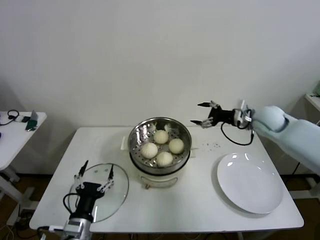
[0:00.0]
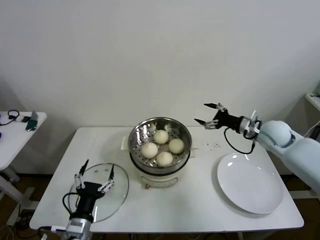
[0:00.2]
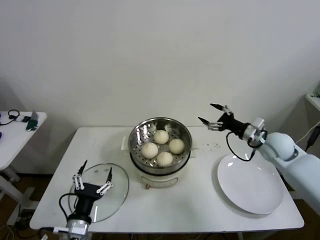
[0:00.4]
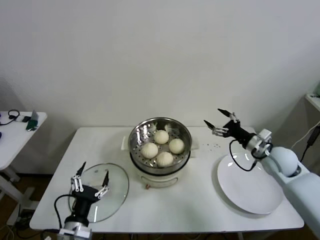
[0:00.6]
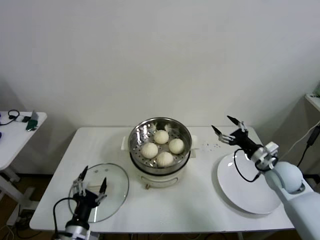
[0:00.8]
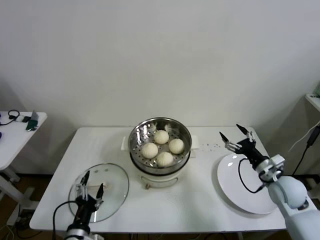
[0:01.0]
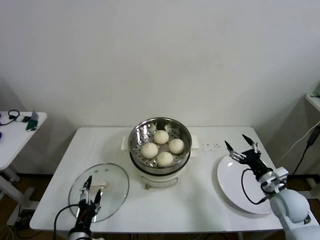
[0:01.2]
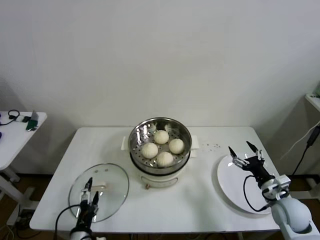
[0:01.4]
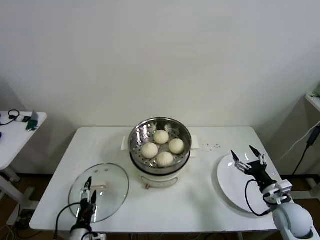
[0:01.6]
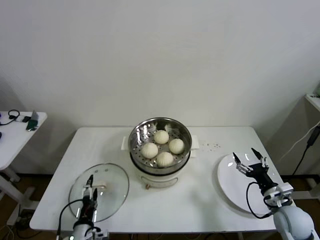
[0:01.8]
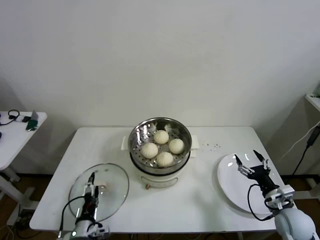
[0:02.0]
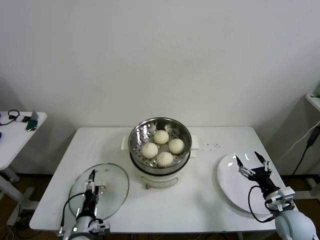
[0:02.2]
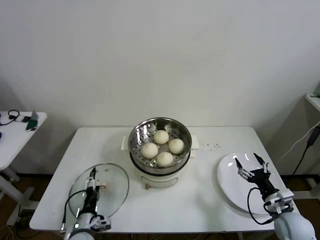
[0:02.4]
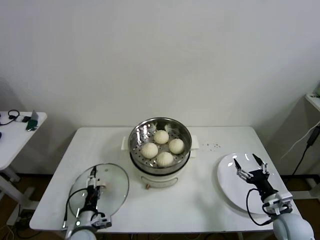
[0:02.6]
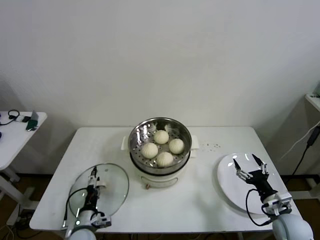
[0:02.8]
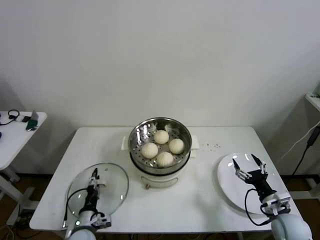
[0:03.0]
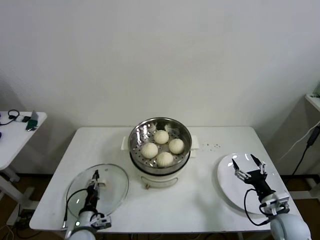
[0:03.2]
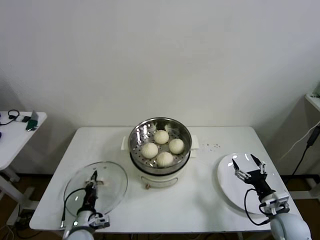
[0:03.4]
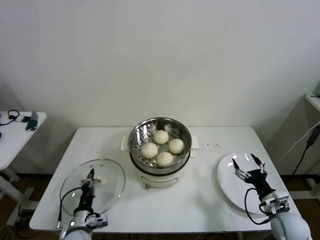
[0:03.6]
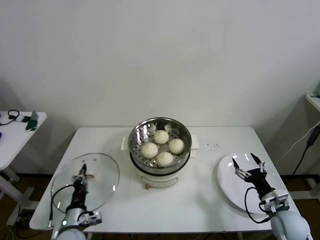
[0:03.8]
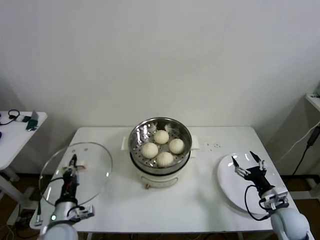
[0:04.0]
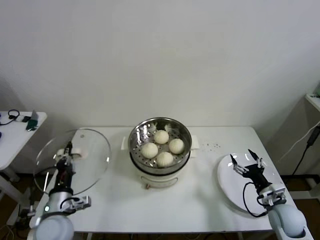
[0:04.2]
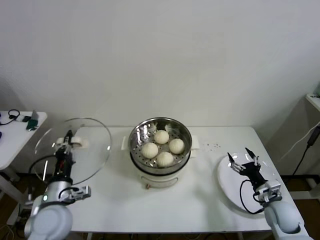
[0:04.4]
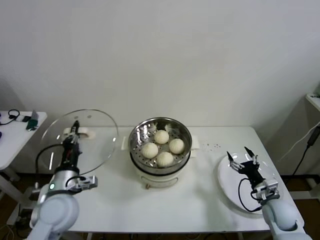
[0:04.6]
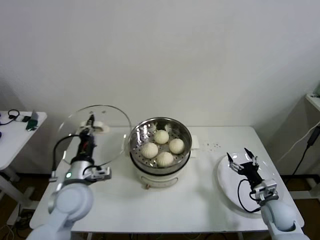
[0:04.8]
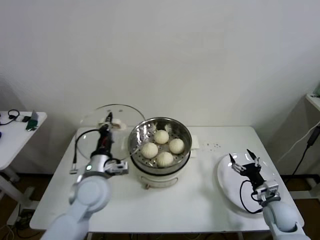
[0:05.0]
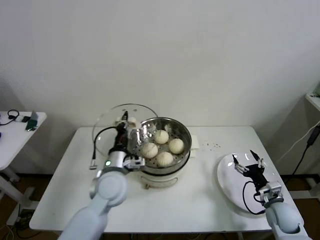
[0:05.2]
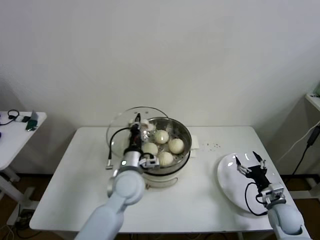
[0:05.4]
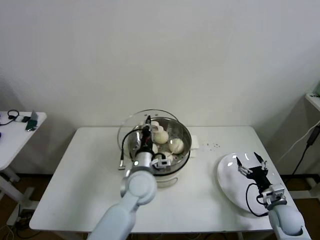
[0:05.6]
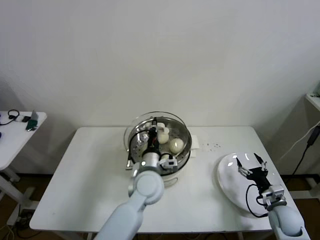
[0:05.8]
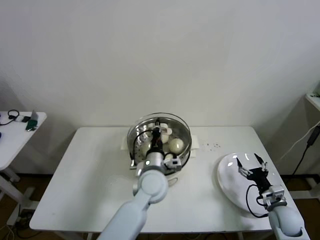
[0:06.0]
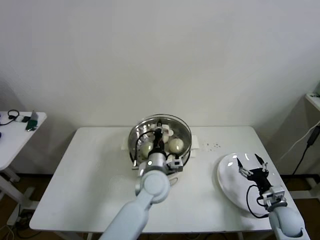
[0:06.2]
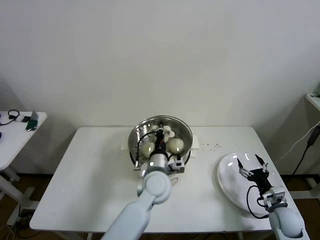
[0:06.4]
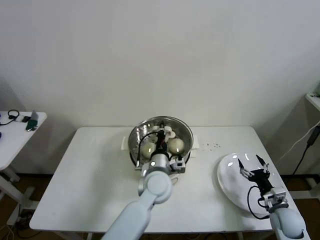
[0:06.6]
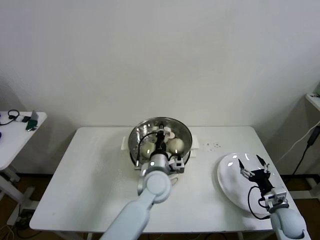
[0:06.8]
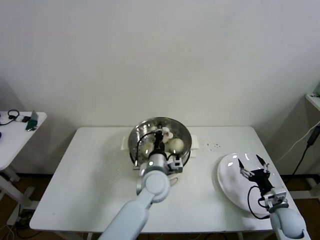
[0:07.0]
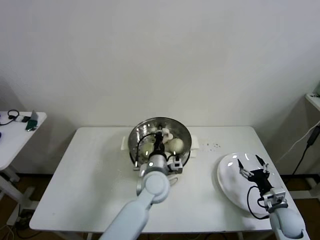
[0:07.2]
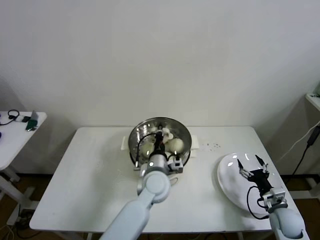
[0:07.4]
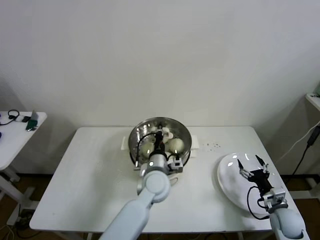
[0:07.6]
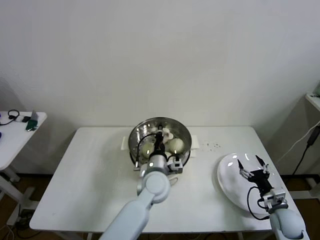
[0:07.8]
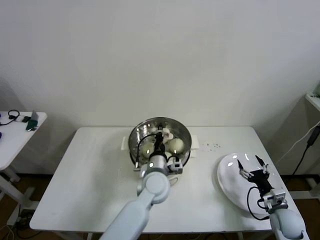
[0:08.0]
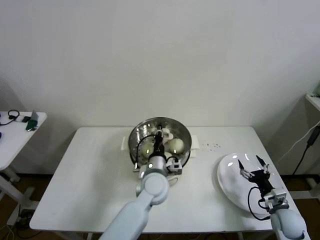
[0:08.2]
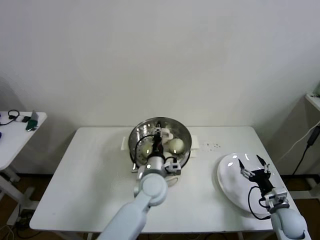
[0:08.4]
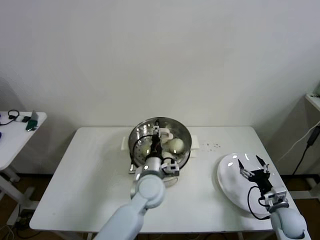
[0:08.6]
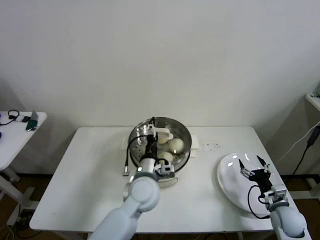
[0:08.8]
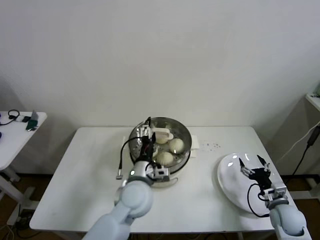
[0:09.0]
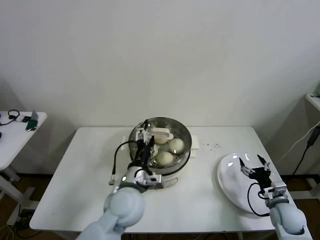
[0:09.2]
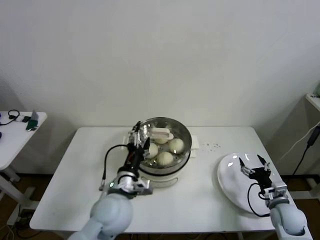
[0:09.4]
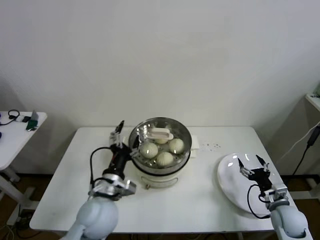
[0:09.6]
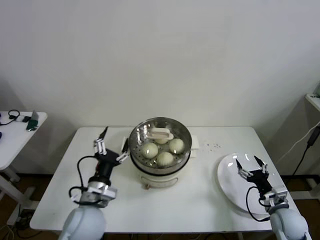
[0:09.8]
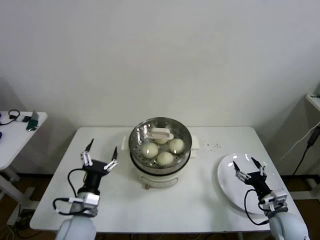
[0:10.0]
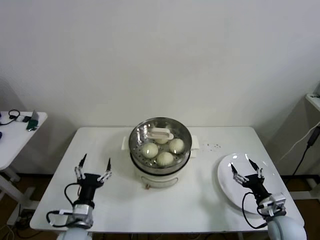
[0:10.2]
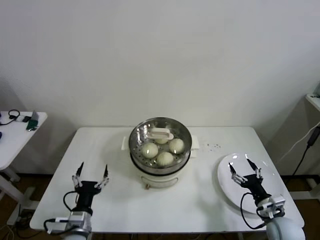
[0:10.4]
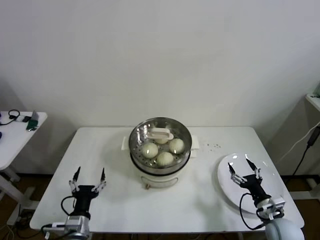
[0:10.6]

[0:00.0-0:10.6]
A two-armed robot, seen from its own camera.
Step, 0:00.0 to 0:03.4: Grasp the pot lid with left gripper.
Step, 0:03.6 to 0:08.4: Place the pot lid on the steamer with left gripper.
0:00.0 to 0:01.6: The right gripper shifts about 30 cm backward and downward. The left gripper moves downward, about 10 cm.
0:01.6 to 0:03.0: The left gripper travels forward by approximately 5 cm.
0:03.0 to 0:04.6: The right gripper travels forward by approximately 5 cm; the left gripper goes roughly 20 cm upward, and closes up.
0:04.6 to 0:06.0: The left gripper travels to the right by about 25 cm.
0:06.0 to 0:07.6: There are only small adjustments of the grippers.
0:07.6 to 0:09.0: The left gripper moves about 5 cm, and opens up.
0:09.0 to 0:10.6: The left gripper travels to the left, backward and downward by about 25 cm. The right gripper moves about 5 cm.

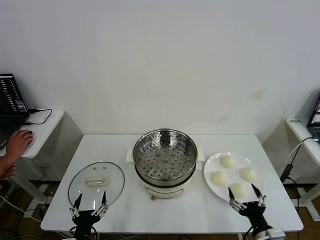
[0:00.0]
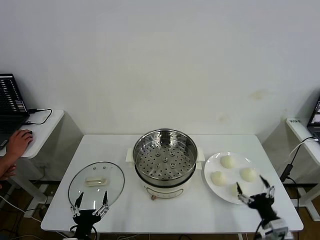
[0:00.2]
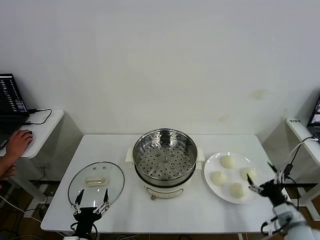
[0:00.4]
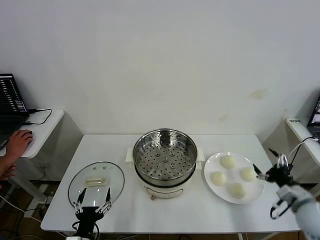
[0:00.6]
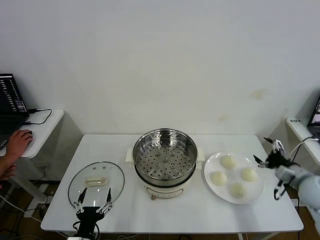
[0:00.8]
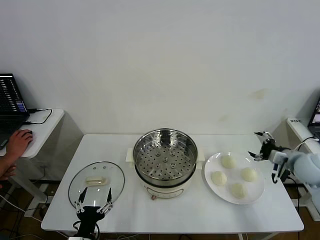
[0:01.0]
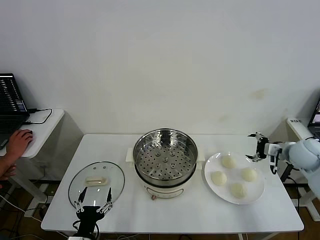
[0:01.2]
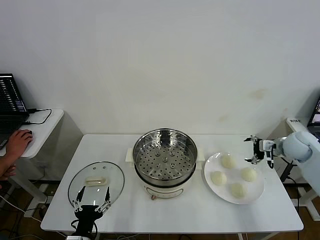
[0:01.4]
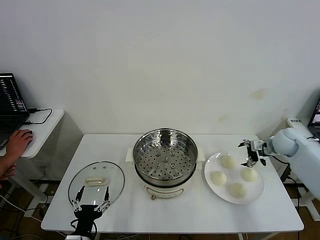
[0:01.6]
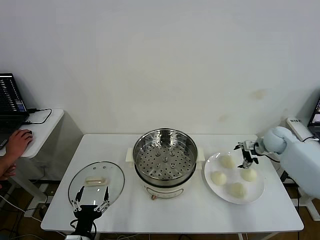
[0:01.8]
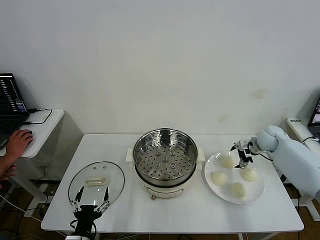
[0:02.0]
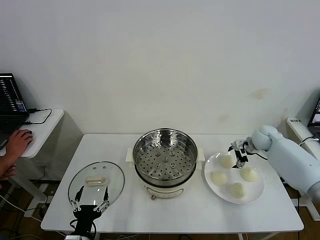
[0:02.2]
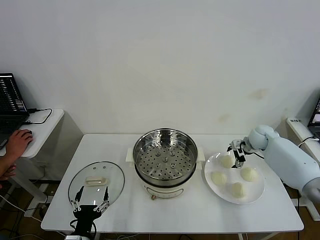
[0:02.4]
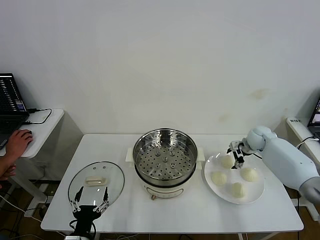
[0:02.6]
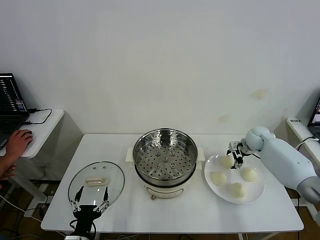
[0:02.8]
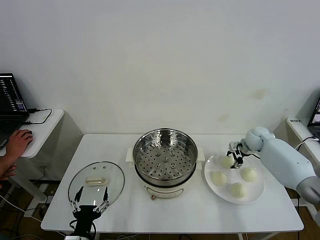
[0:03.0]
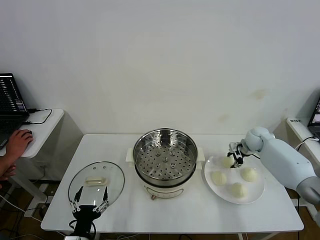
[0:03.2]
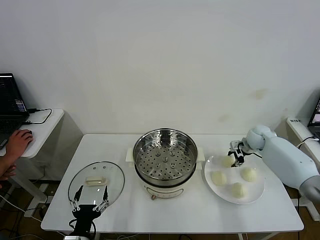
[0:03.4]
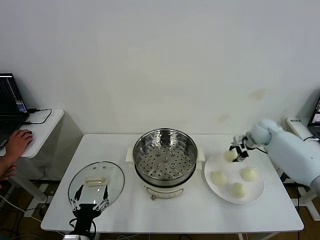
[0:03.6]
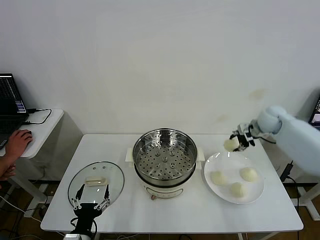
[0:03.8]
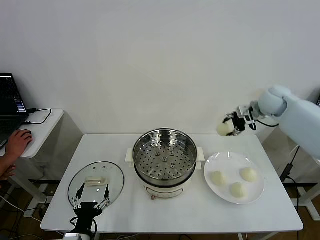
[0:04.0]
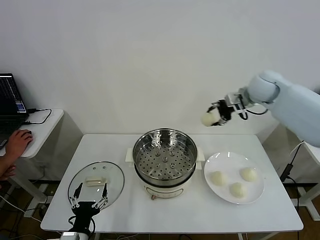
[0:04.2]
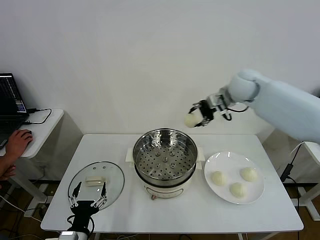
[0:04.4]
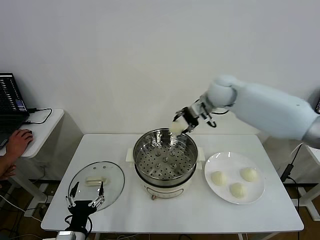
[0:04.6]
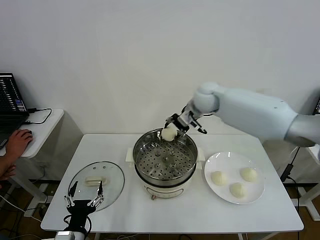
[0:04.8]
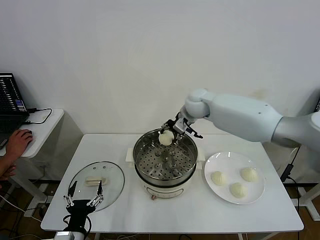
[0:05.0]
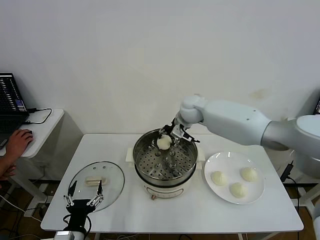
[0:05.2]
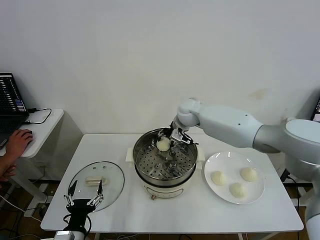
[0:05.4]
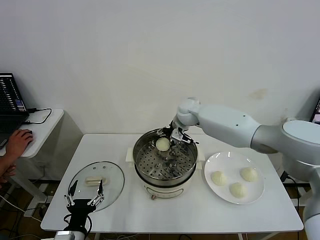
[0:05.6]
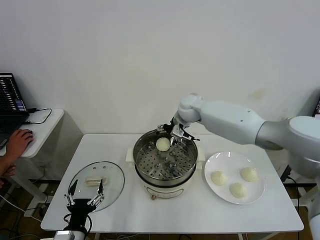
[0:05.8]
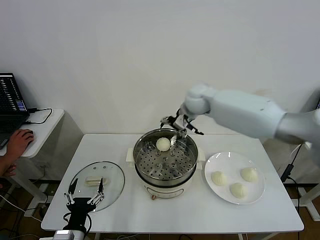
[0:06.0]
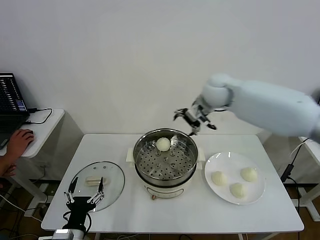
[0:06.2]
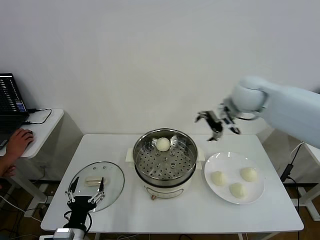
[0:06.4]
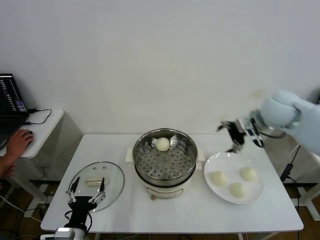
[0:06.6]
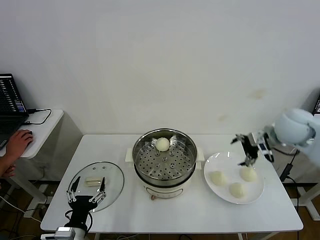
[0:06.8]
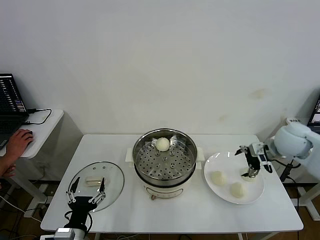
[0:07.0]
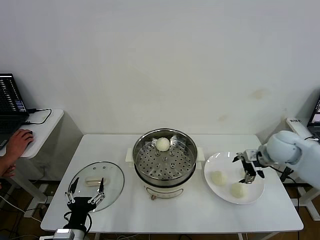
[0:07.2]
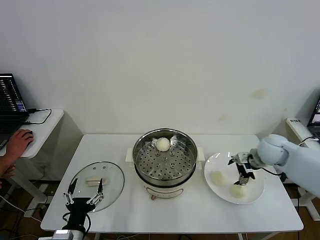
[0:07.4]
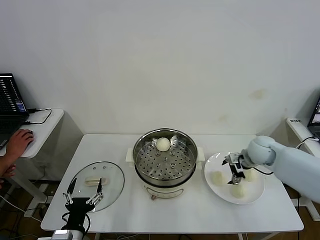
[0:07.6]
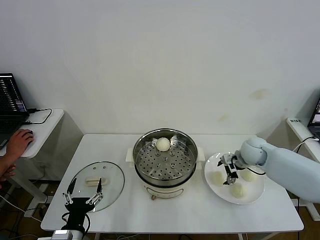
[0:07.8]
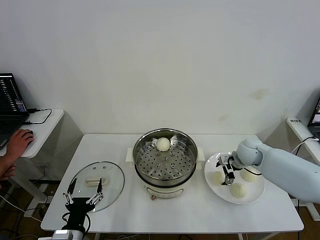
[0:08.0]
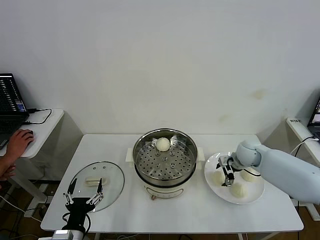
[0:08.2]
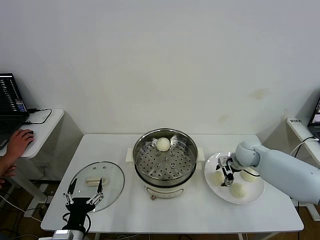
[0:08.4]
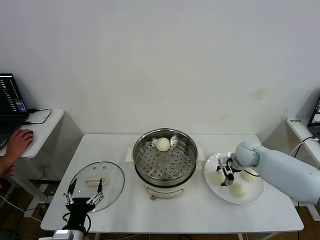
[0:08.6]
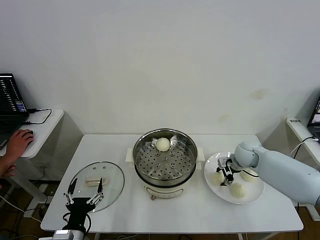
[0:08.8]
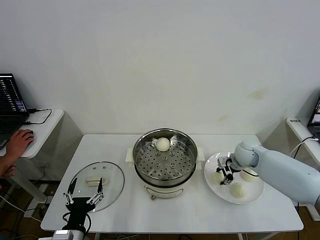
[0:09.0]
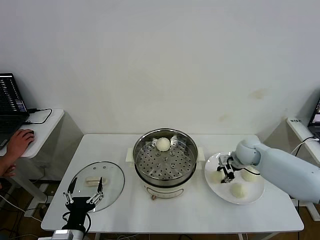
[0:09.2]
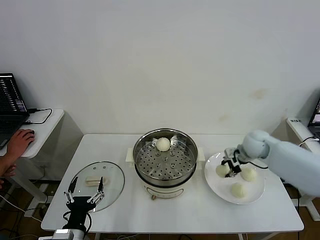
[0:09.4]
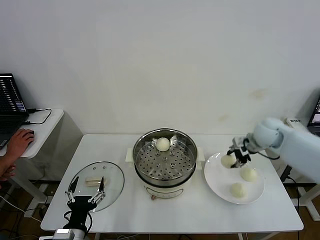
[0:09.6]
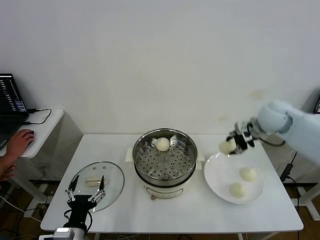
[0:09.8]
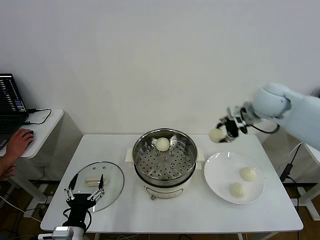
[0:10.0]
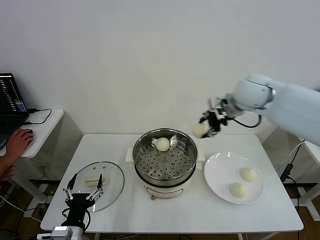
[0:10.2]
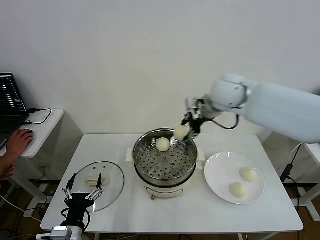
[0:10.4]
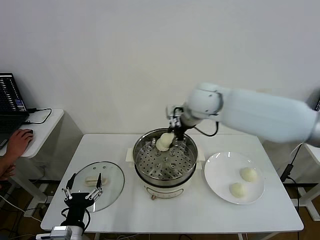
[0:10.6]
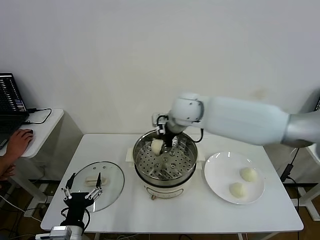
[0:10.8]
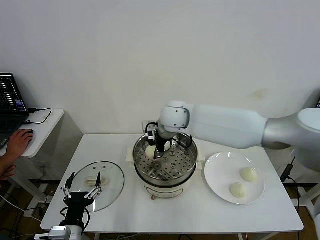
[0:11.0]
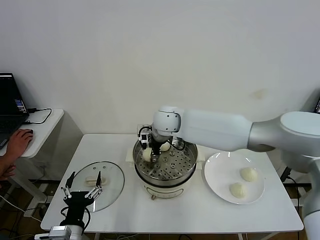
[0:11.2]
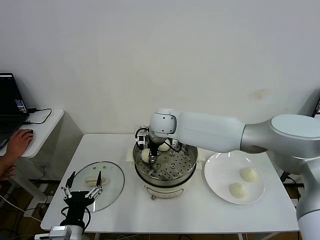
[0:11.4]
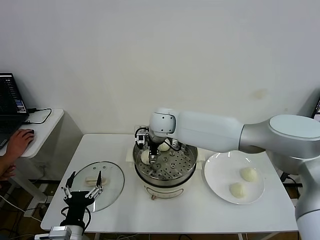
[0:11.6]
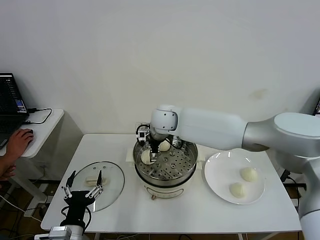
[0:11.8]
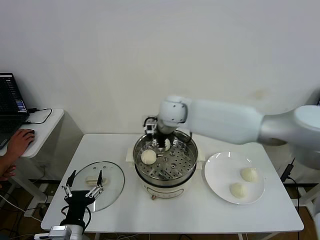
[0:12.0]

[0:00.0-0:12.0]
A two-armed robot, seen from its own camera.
Step, 0:00.0 to 0:03.0: Grasp the baozi in the plate with right gripper.
Step, 0:03.2 to 0:05.6: Place the baozi on the steamer with right gripper.
Step, 0:06.0 to 0:08.8: Grasp the baozi in the plate with right gripper.
Step, 0:09.0 to 0:11.8: Place the baozi on the steamer with right gripper.
0:01.6 to 0:03.0: The right gripper is displaced forward by roughly 5 cm, and closes its fingers.
0:03.0 to 0:04.4: The right gripper moves upward and to the left, roughly 30 cm.
0:04.4 to 0:06.0: The right gripper travels to the left by about 5 cm, and opens its fingers.
0:06.0 to 0:07.6: The right gripper heads to the right, downward and backward, covering some 30 cm.
0:07.6 to 0:09.0: The right gripper closes up.
0:09.0 to 0:10.4: The right gripper moves upward and to the left, about 30 cm.
0:10.4 to 0:12.0: The right gripper travels to the left by some 10 cm, and opens up.
